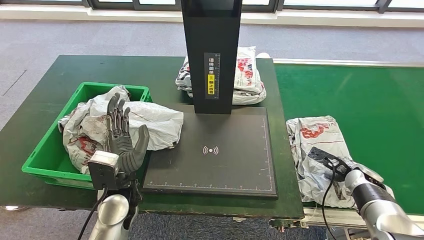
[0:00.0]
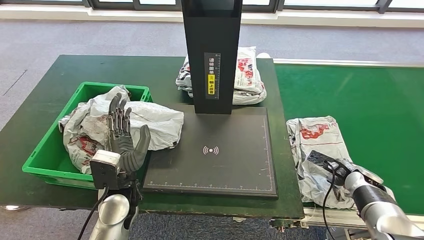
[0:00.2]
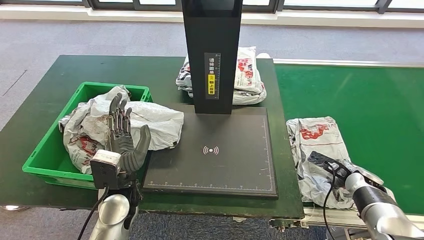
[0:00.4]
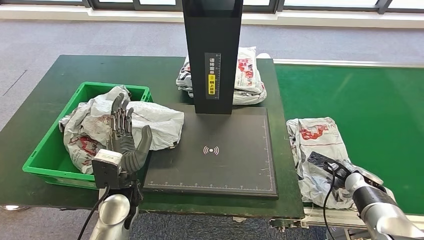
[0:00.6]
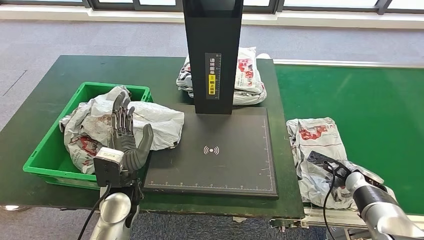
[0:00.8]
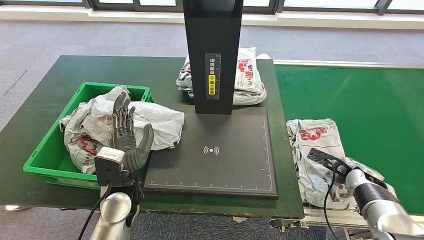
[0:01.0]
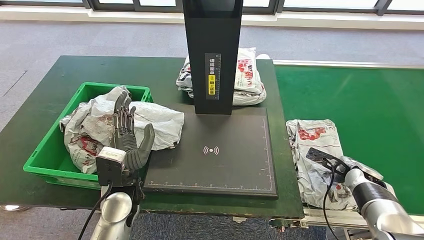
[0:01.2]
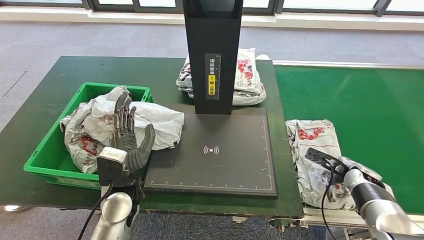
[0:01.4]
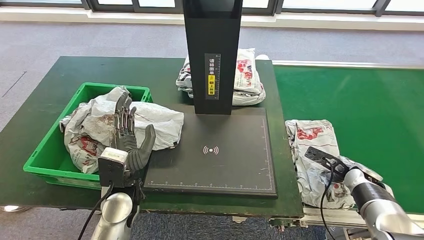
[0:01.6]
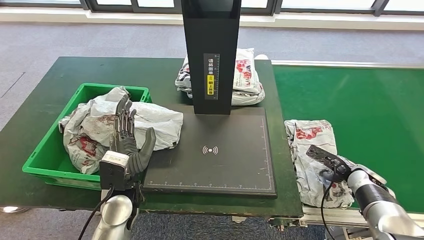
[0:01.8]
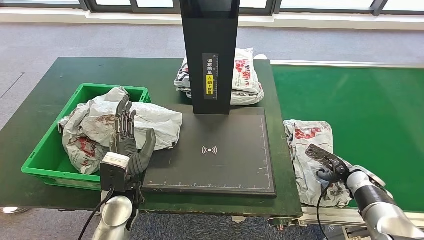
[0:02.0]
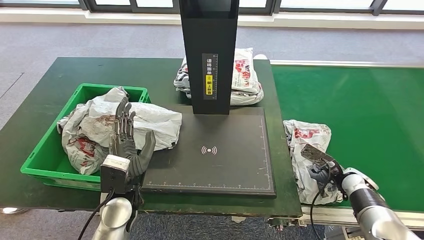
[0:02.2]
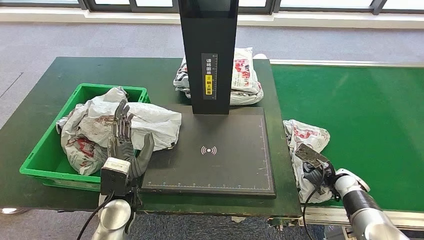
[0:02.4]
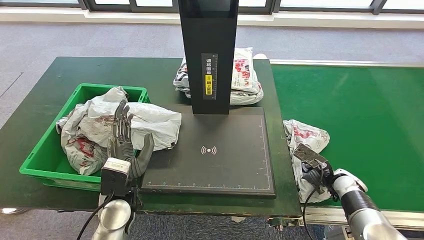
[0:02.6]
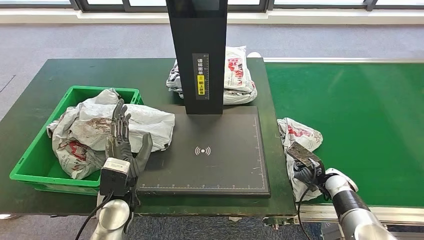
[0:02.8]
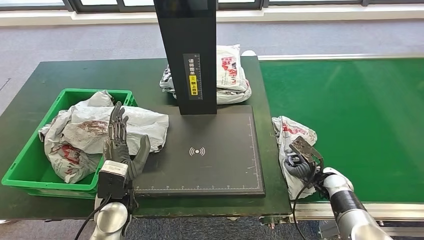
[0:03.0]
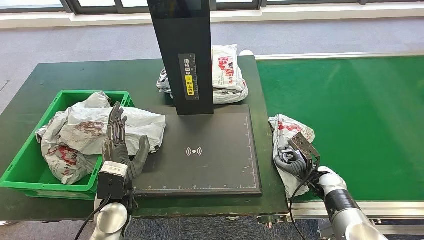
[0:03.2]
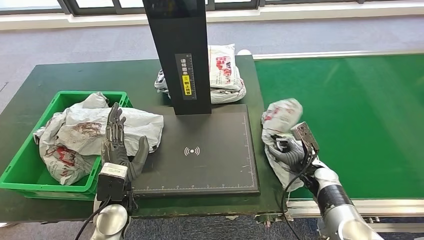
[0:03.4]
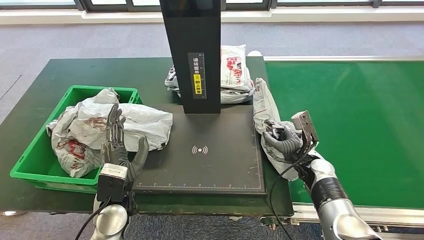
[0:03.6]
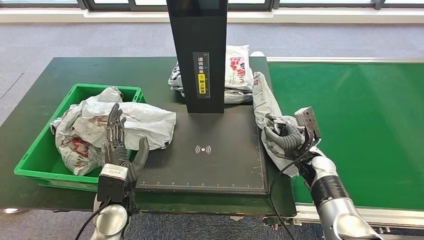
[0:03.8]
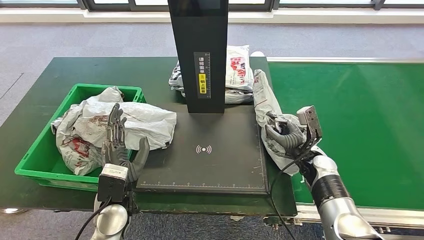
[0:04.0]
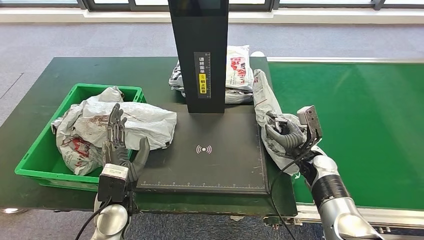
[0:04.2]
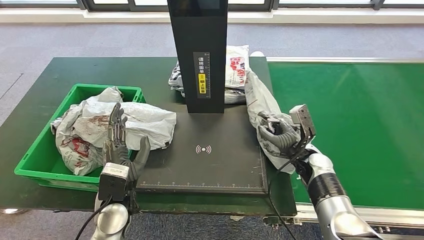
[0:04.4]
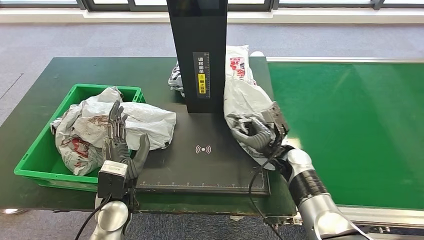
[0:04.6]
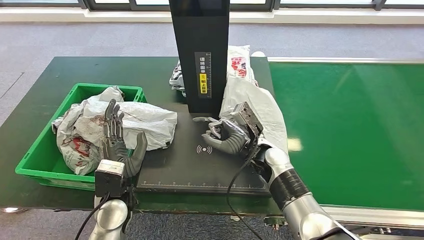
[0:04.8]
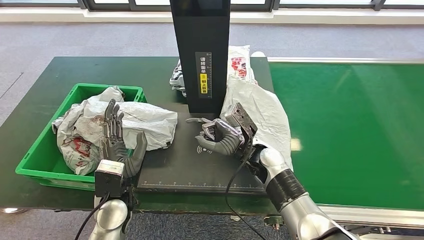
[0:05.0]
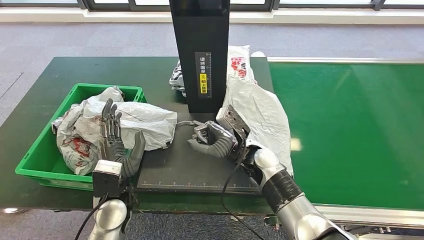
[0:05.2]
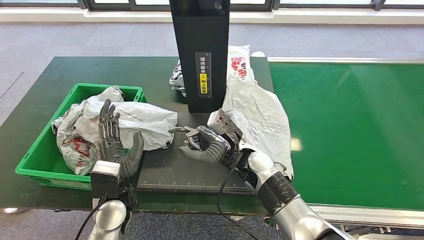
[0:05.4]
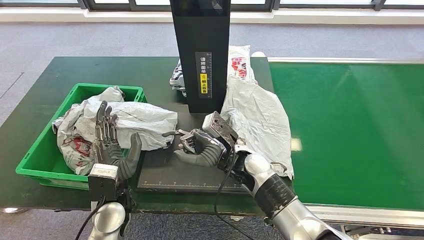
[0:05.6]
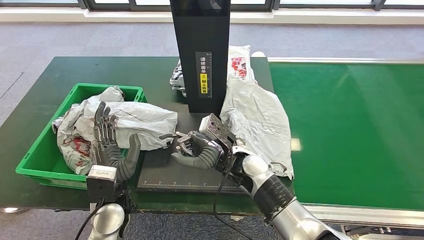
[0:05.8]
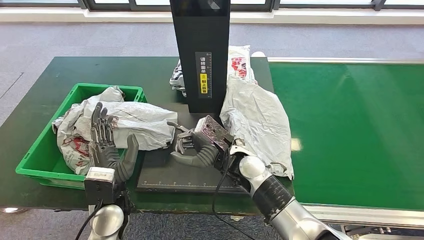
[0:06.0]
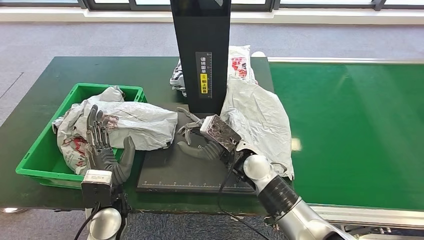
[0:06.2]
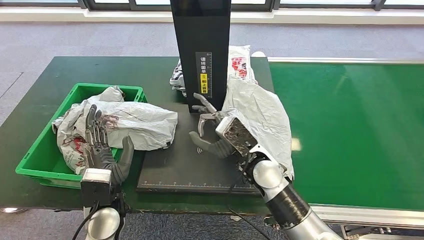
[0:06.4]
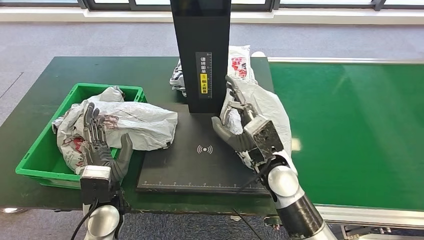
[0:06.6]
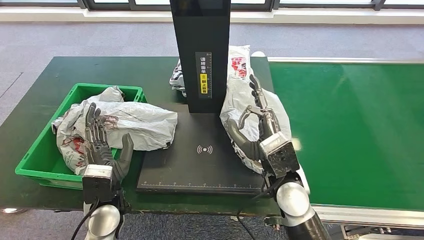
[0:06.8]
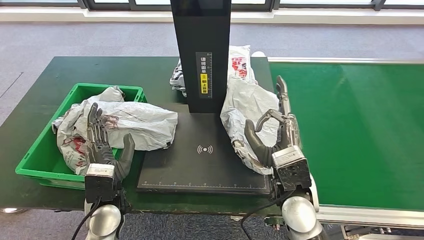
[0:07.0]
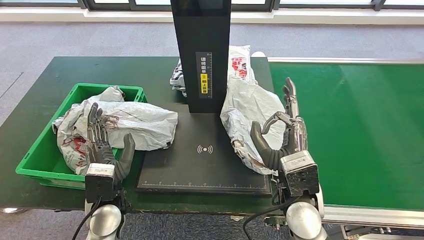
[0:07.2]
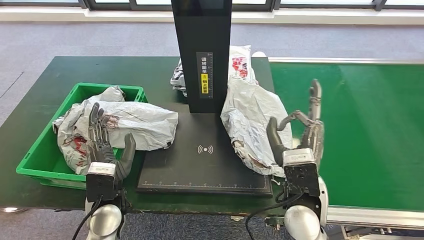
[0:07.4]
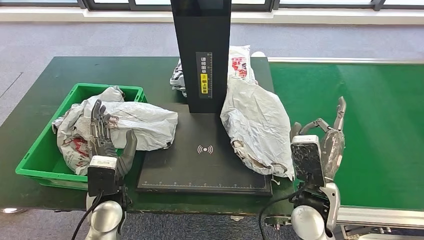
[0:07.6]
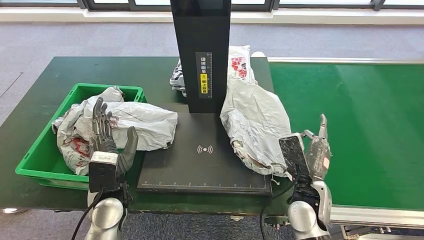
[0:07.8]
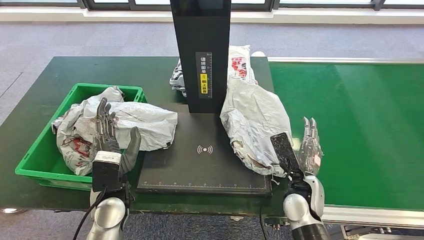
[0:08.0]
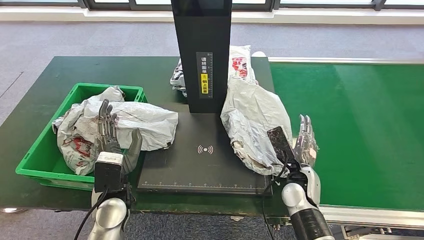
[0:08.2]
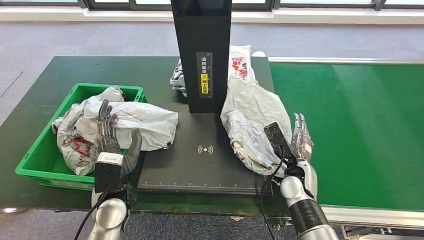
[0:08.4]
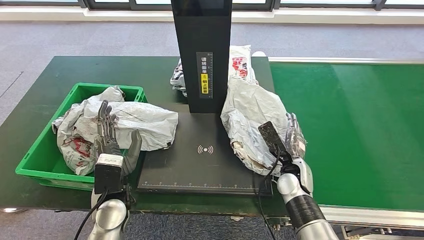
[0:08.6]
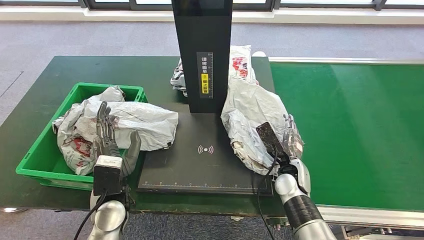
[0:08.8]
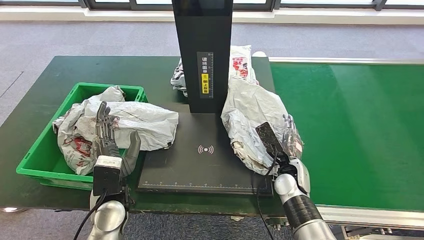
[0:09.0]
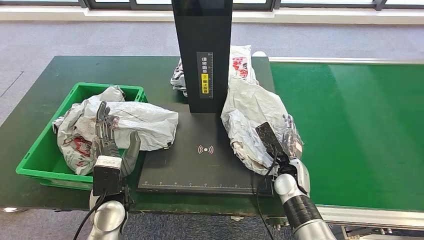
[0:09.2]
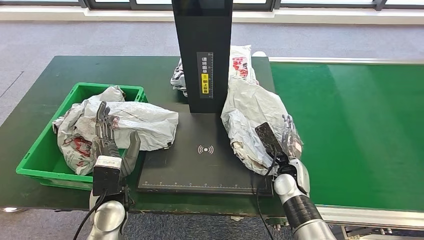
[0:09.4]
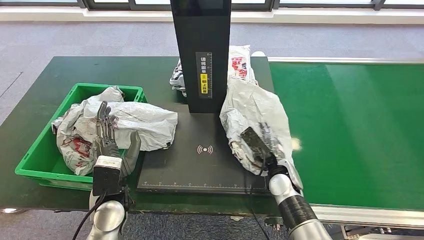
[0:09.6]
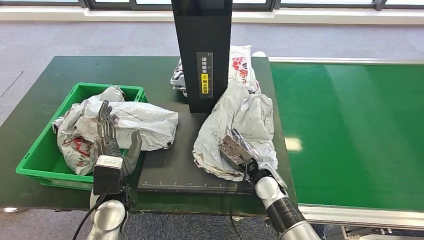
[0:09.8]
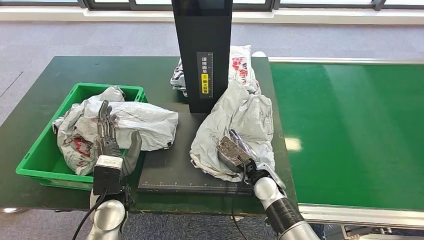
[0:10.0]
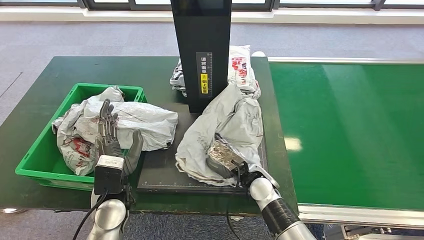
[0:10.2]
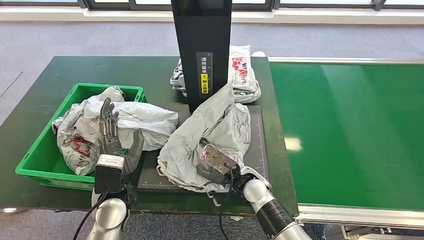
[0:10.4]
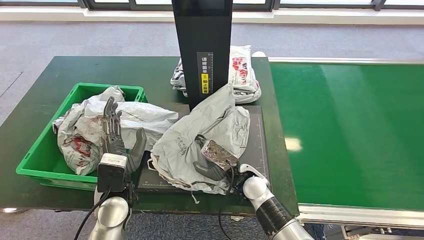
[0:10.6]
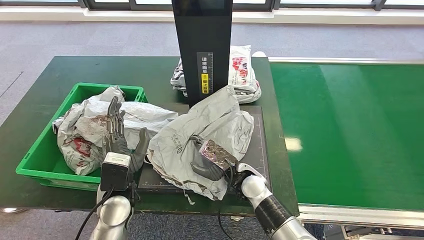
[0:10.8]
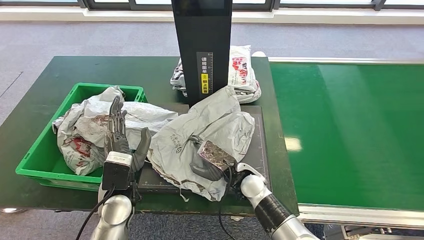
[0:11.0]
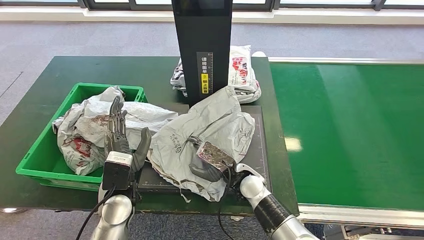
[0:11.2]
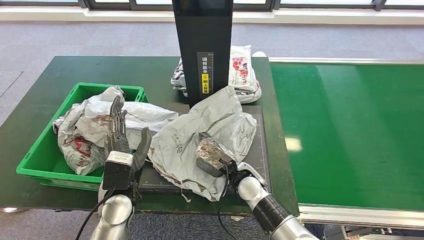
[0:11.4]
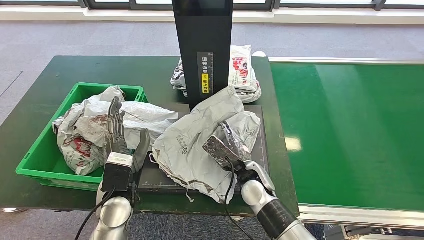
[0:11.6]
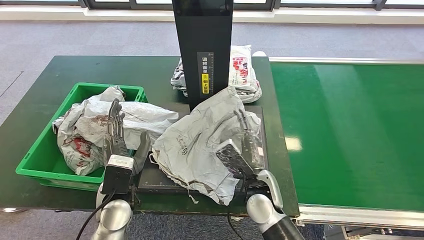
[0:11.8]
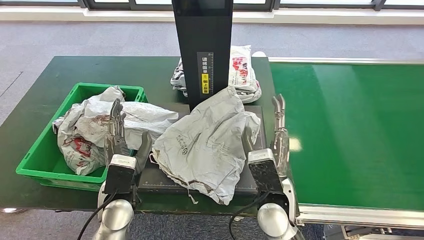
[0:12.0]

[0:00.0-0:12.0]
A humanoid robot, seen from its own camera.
Step, 0:00.0 to 0:04.2: Pick up the parcel from the conveyor belt.
0:00.0 to 0:01.6: The hands stay close to where they were, moving slightly.
0:06.0 to 0:07.6: The right hand goes about 20 cm to the right and backward.
0:07.6 to 0:09.0: The right hand heads downward and forward, covering about 15 cm.
0:09.0 to 0:10.4: The right hand travels to the left by some 10 cm.
0:10.4 to 0:12.0: The right hand is displaced upward and backward by about 10 cm.

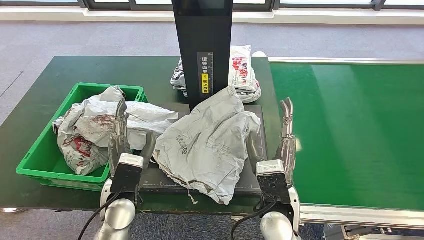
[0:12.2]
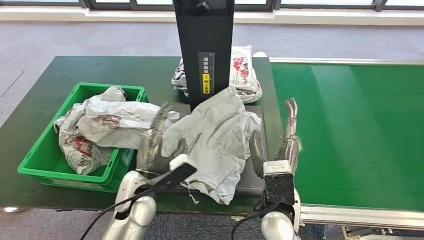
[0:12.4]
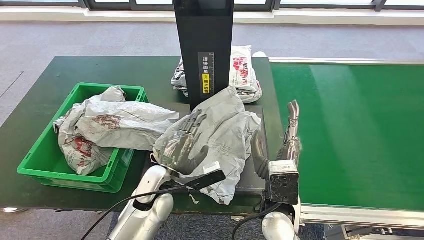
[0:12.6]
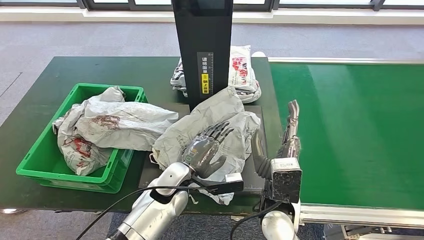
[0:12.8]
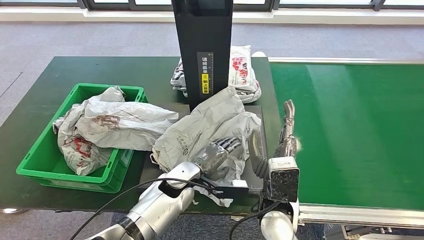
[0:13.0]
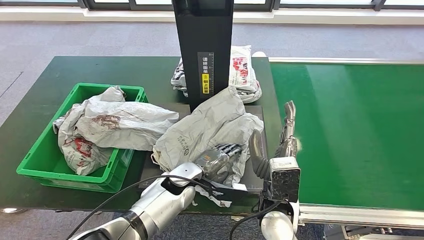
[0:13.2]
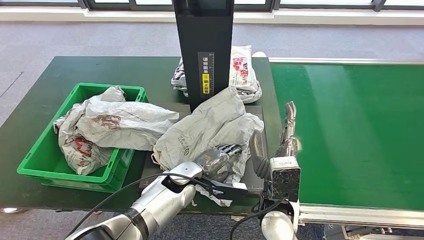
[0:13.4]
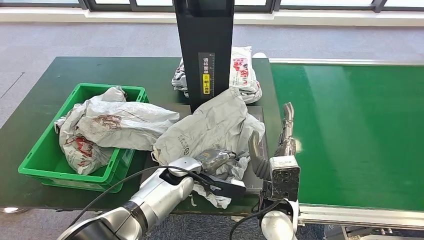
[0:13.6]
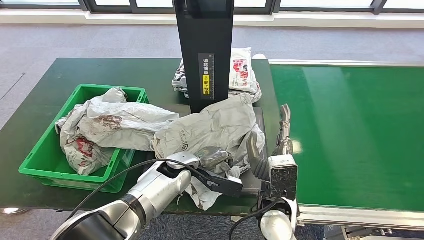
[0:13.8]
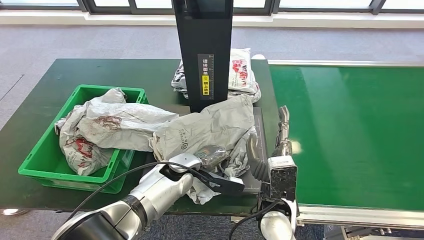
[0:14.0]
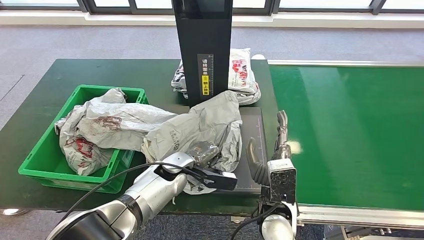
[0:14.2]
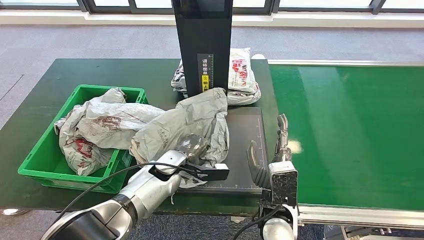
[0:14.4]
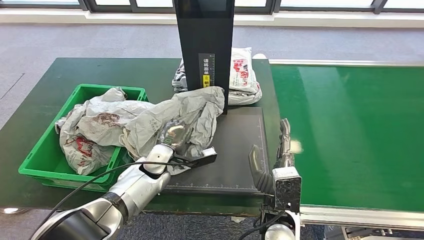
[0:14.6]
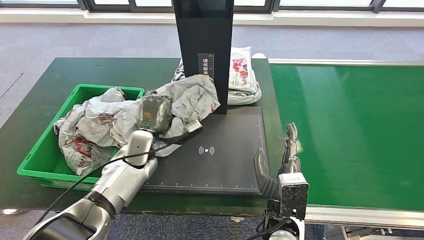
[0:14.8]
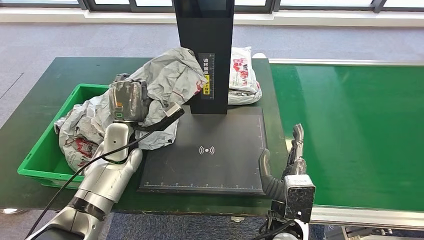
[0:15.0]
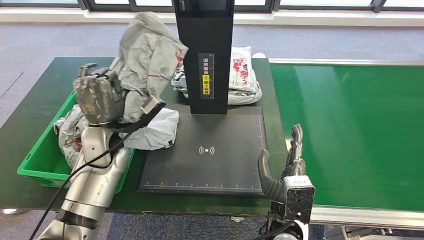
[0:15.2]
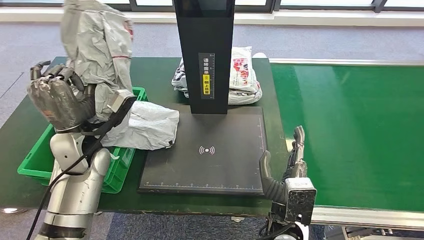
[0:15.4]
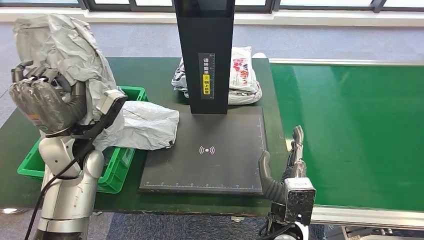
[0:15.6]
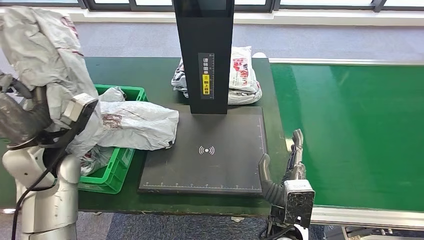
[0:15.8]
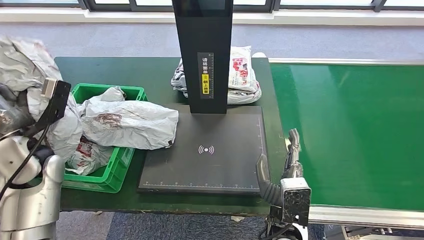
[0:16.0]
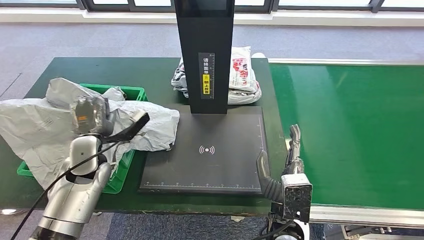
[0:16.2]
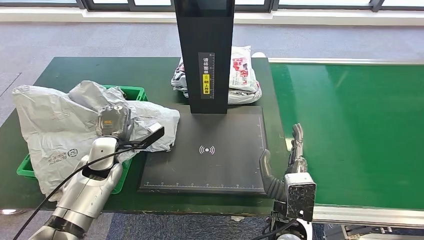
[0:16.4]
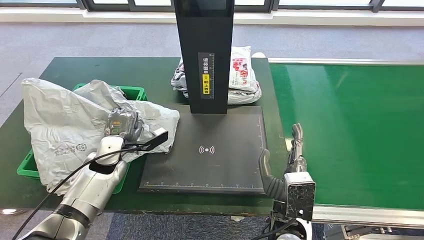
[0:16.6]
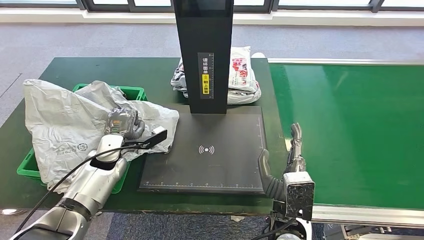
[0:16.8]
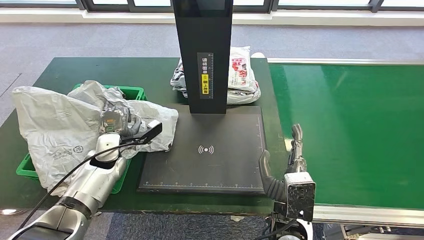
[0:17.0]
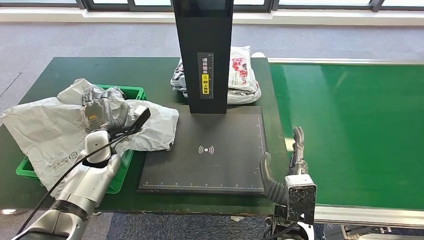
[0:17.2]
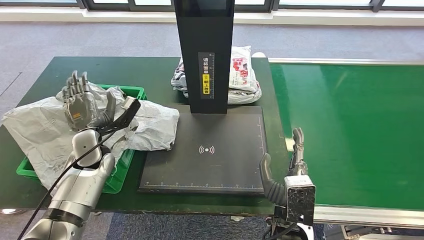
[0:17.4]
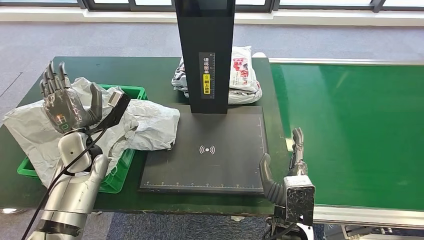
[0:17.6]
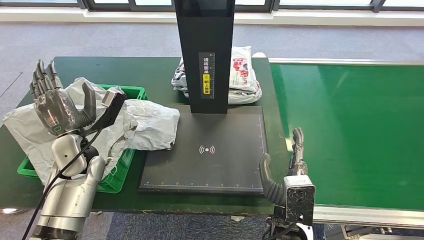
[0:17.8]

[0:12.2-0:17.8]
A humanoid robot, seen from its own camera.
Step, 0:12.8 to 0:15.8: Pick up the parcel from the inbound machine.
Step, 0:16.0 to 0:17.8: Place the parcel into the delivery box.
0:16.4 to 0:17.8: The left hand travels upward by about 5 cm.
